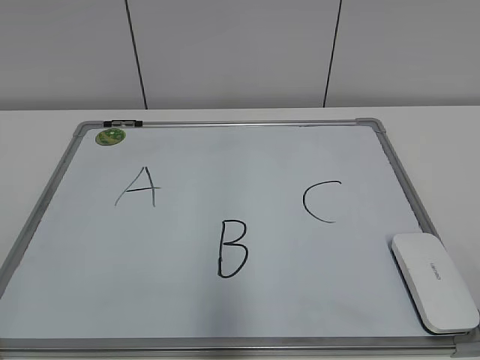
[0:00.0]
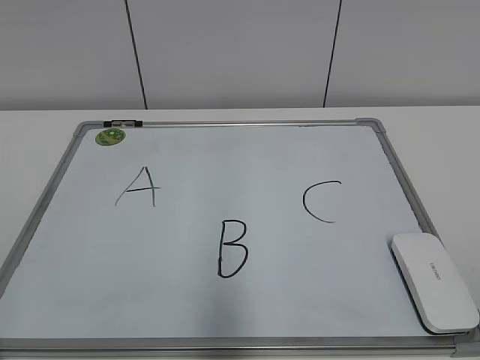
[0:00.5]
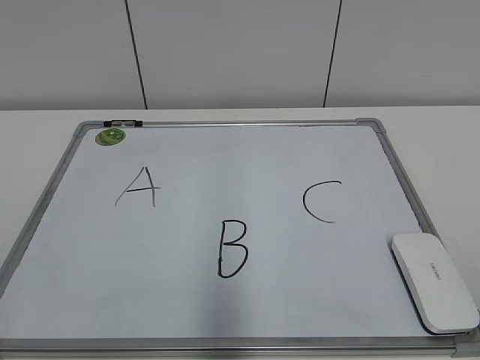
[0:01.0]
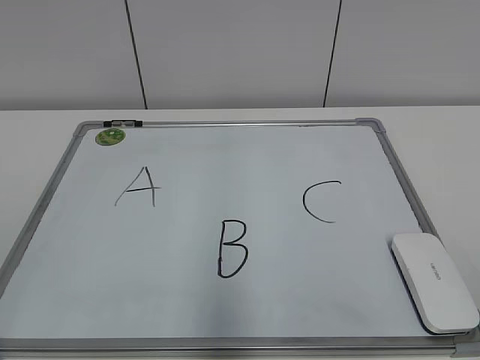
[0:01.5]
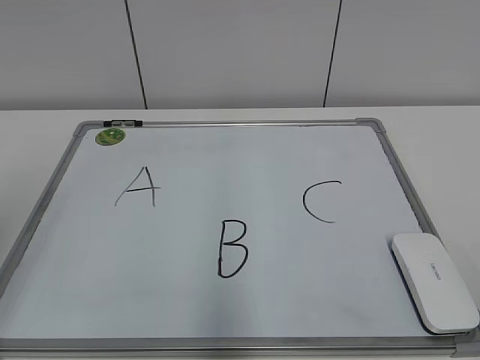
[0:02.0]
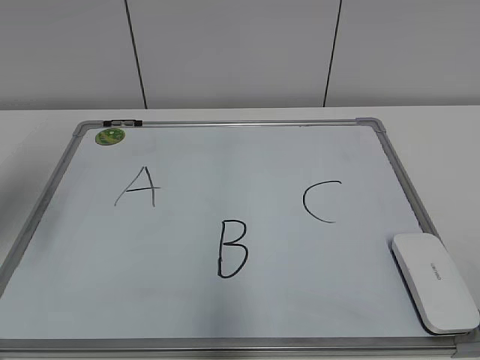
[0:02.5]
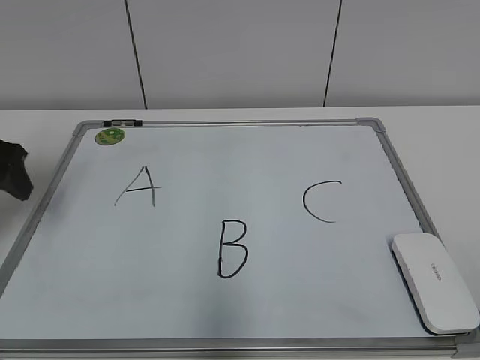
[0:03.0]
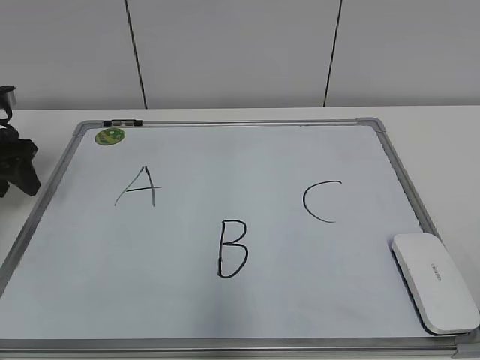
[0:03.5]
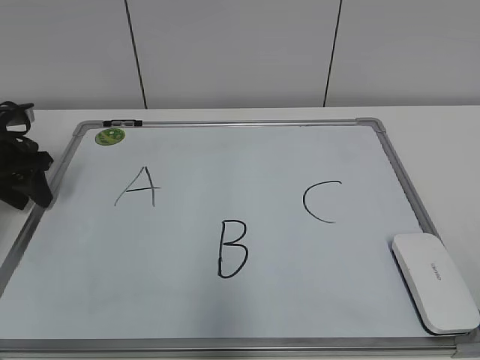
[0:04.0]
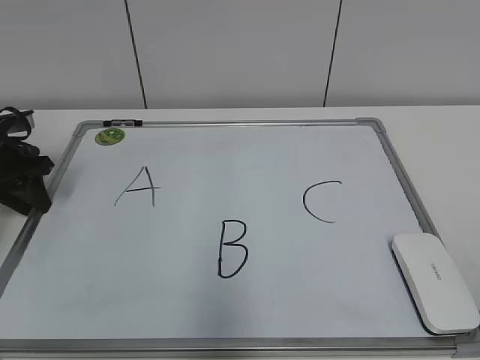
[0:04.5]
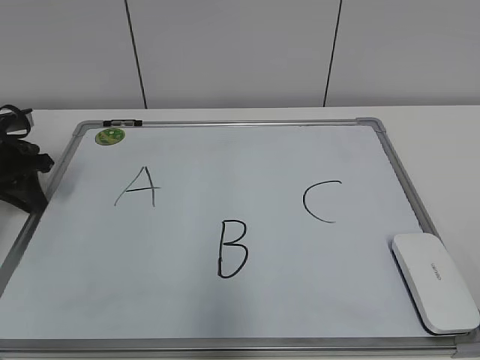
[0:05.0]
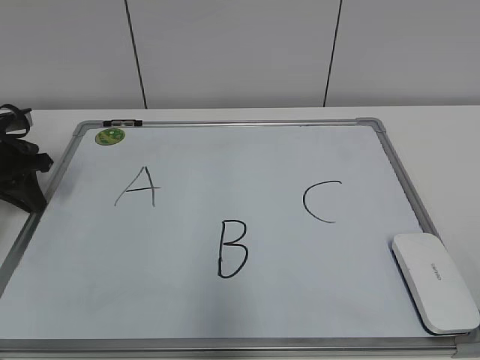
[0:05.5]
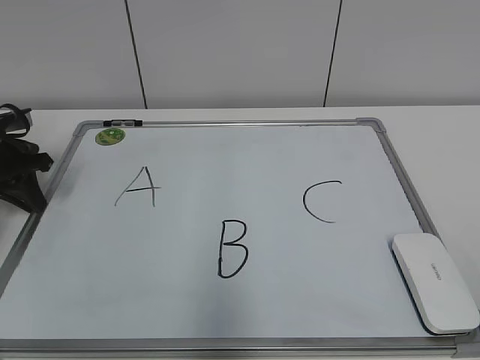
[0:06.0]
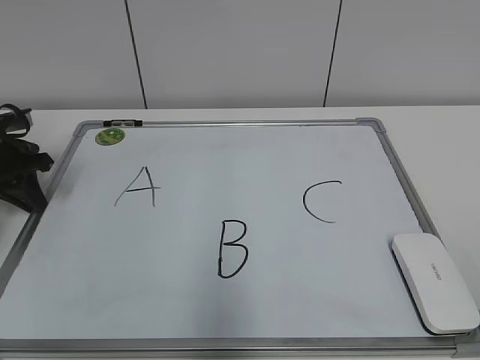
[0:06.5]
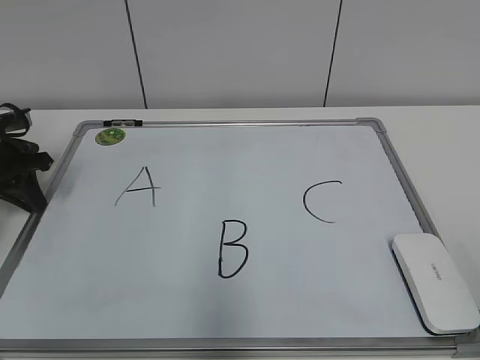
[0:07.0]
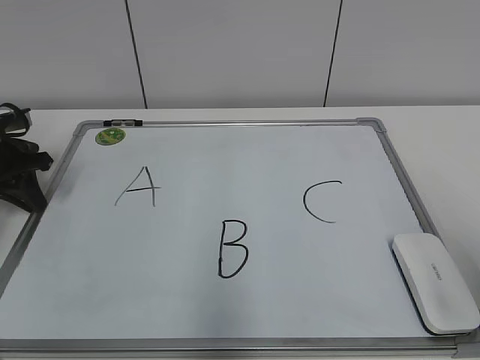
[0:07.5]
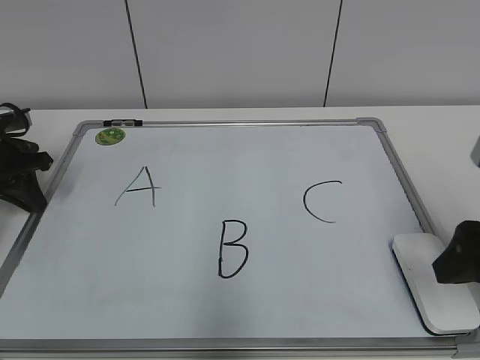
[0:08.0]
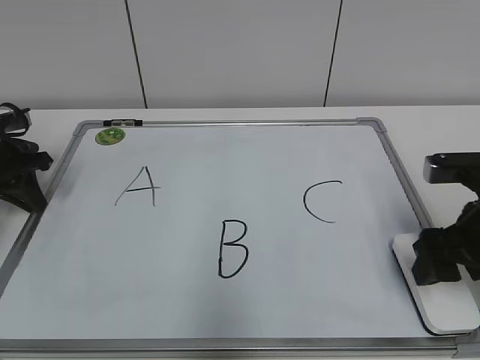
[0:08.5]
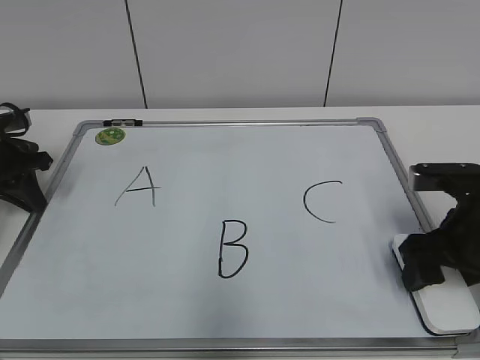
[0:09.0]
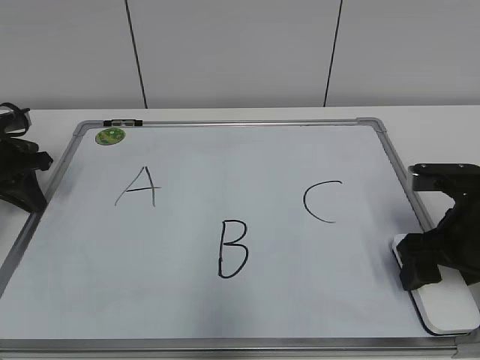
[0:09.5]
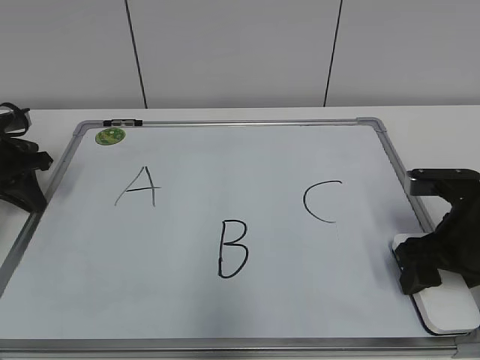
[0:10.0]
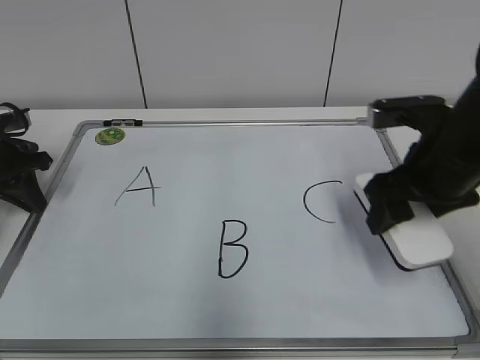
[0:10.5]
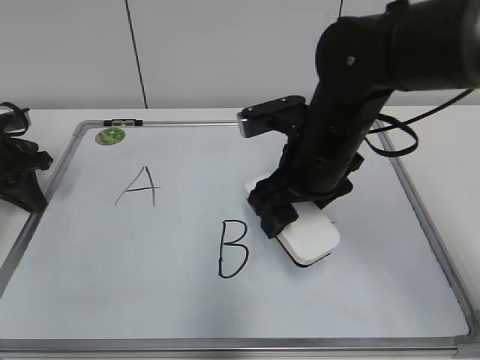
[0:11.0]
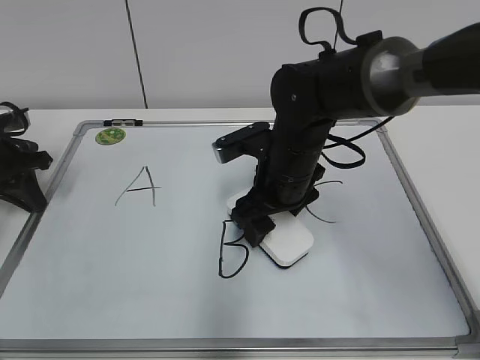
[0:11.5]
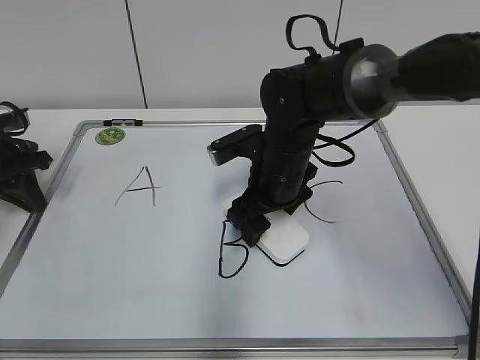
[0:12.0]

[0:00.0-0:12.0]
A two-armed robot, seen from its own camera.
Task of the whole recording: pick up the eraser on the blackboard and erase the letter "B".
Step, 0:00.0 to 0:05.0: Hold the drawing board steady with your left hand.
Step, 0:05.5 to 0:09.5: Grab the eraser with your right hand.
0:02.0 to 0:04.0: The left gripper travels forward and downward by approximately 30 cm, and closes up.
0:04.0 to 0:06.0: The left gripper closes up.
0:06.0 to 0:08.0: The right gripper moves forward, some 20 cm.
0:08.0 to 0:10.0: The right gripper travels downward and forward by approximately 10 cm.
0:10.0 to 0:12.0: The right gripper goes approximately 20 cm to the left and forward.

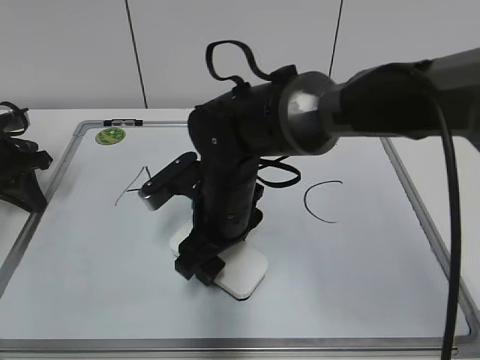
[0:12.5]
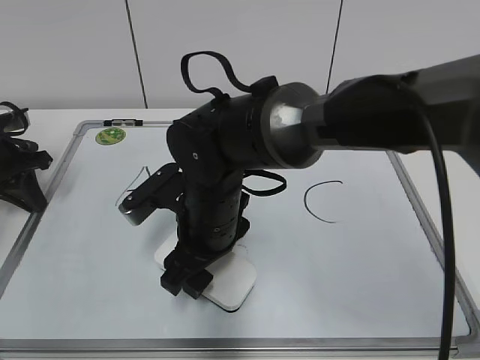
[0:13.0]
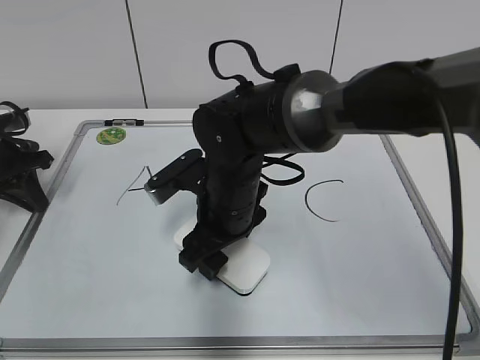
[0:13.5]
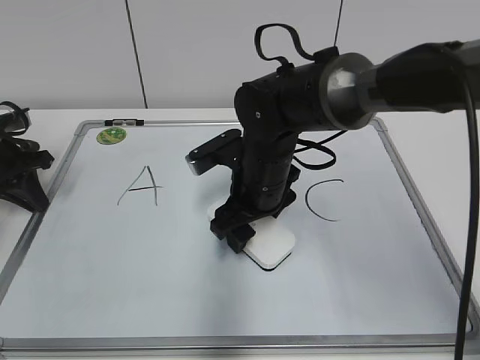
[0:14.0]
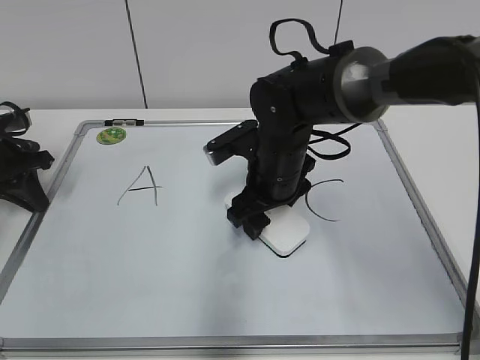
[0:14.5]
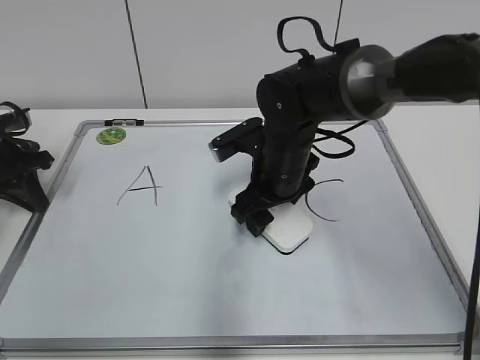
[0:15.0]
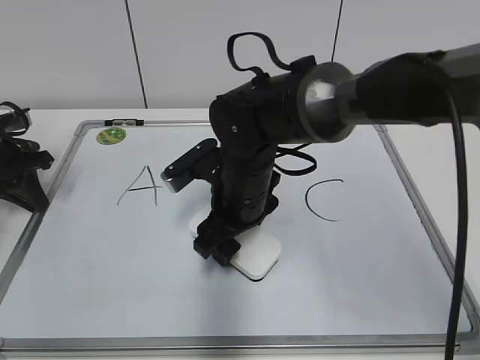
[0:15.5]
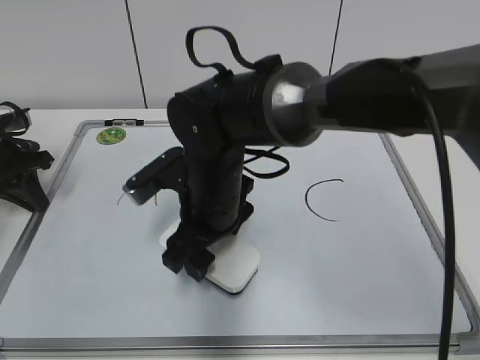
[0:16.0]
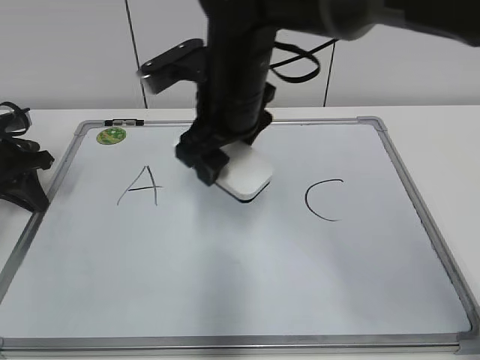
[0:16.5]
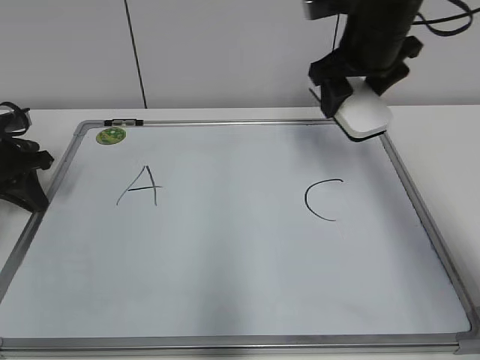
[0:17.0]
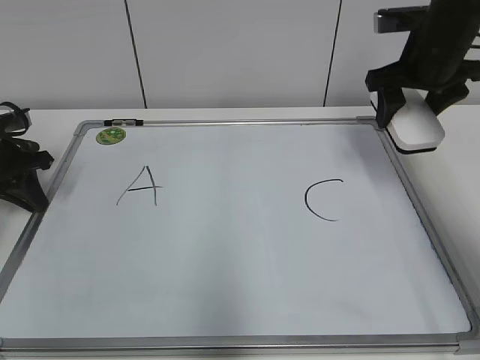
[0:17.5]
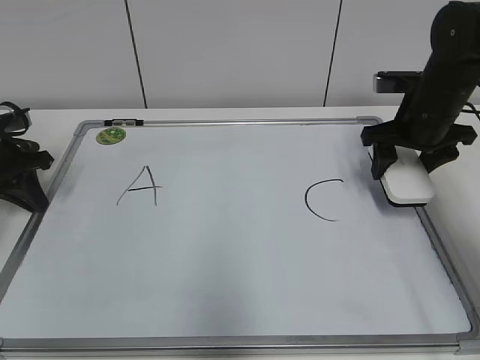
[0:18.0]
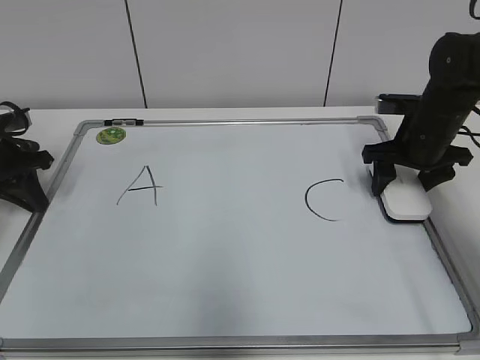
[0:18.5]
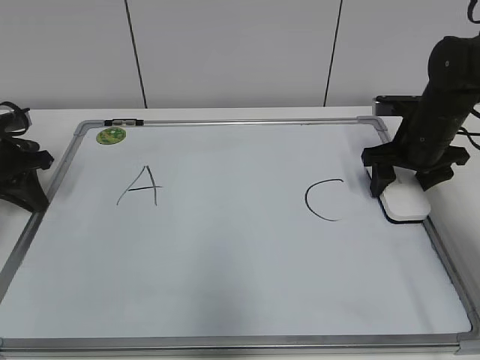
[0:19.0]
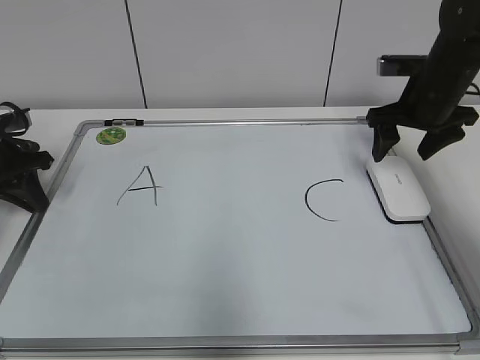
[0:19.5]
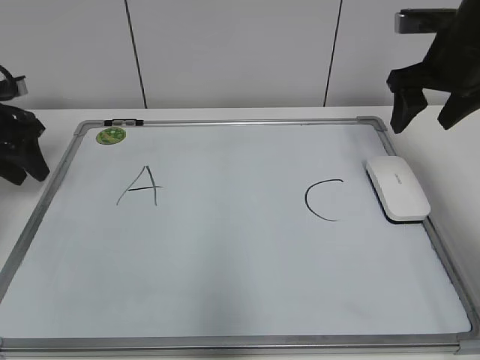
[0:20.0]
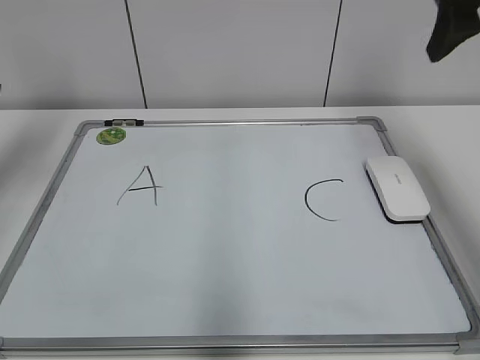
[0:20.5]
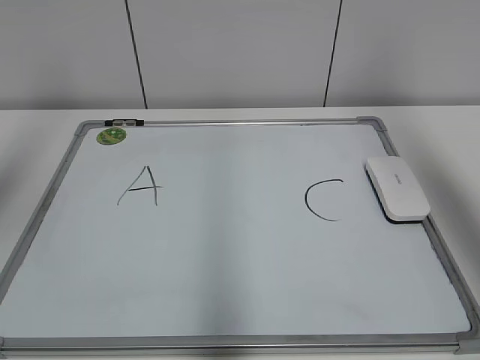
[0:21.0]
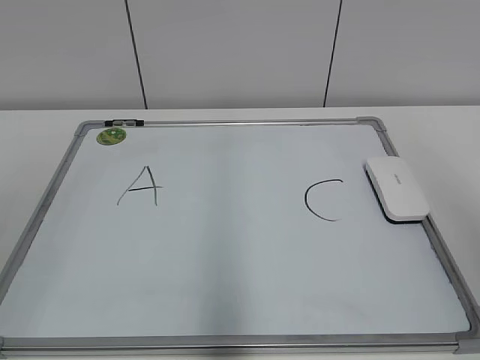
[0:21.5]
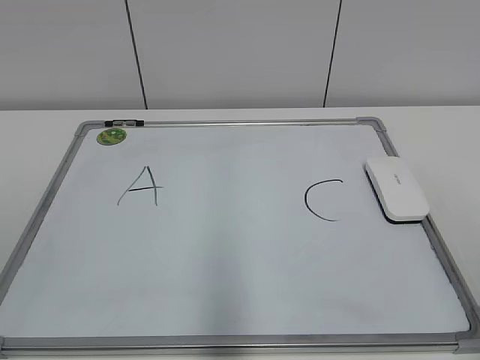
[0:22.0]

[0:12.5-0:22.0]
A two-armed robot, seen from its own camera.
Task of the whole recording: pick up the eraser on the blackboard and erase the letter "B".
Step, 0:12.5 to 0:15.5: Erase the letter B with your right hand.
Step, 0:16.0 to 0:19.0: Put down the eraser with your right hand.
0:12.5 to 0:14.5: The right gripper shifts roughly 10 cm to the right and forward.
0:14.5 to 0:16.5: The right gripper heads upward and to the left, covering approximately 10 cm.
0:16.5 to 0:18.0: The right gripper is displaced to the right by roughly 25 cm.
0:18.0 to 0:20.0: The right gripper heads upward, covering some 5 cm, while the left gripper opens.
0:20.0 to 0:22.0: Both grippers move backward, some 40 cm.
